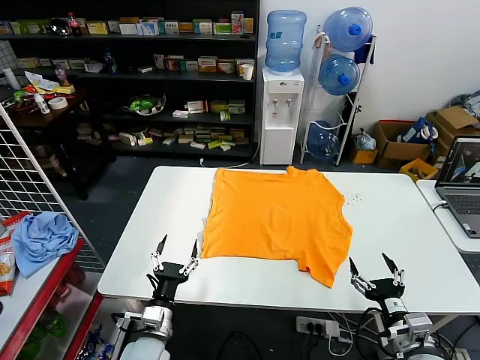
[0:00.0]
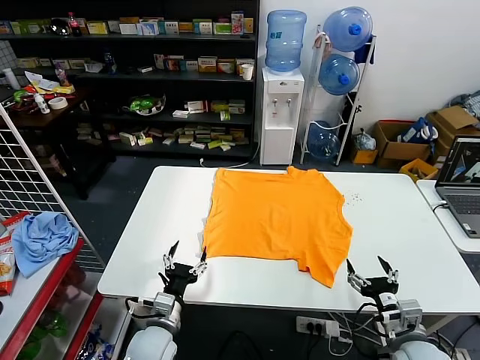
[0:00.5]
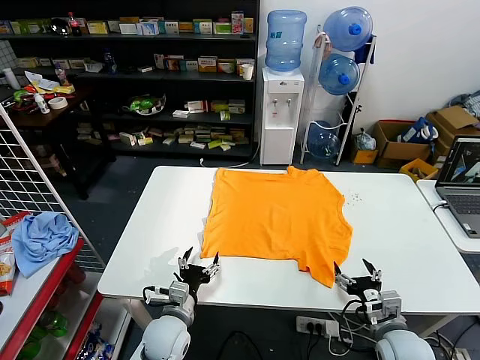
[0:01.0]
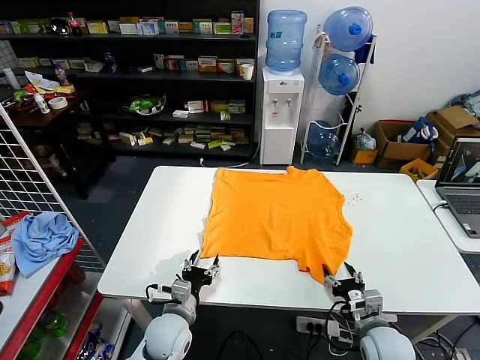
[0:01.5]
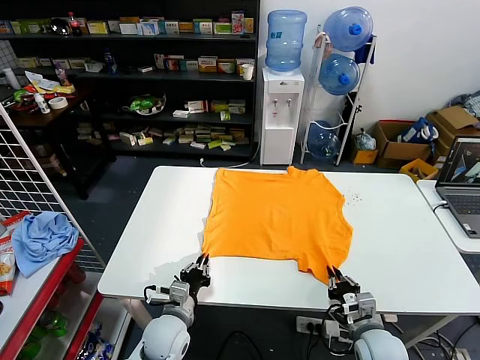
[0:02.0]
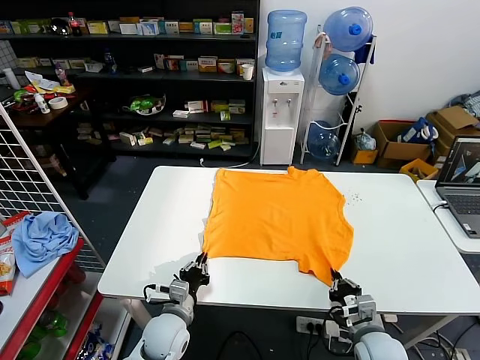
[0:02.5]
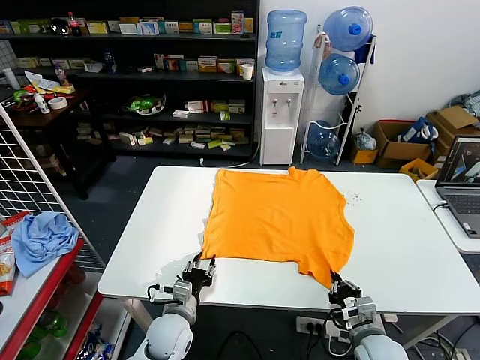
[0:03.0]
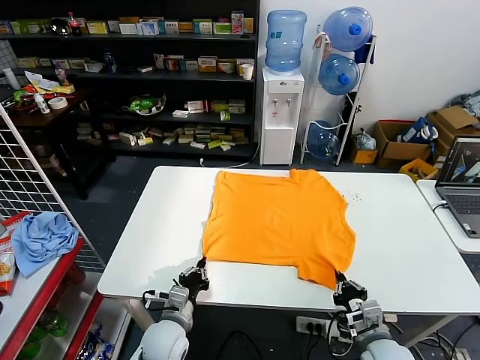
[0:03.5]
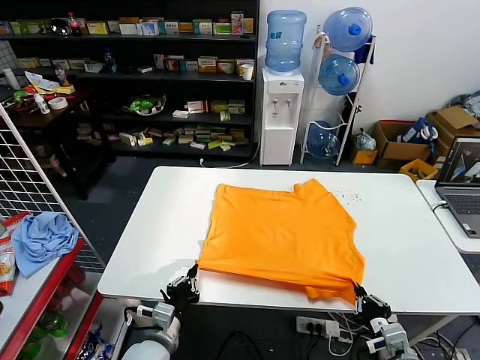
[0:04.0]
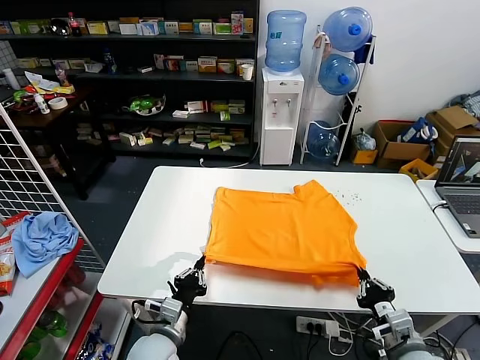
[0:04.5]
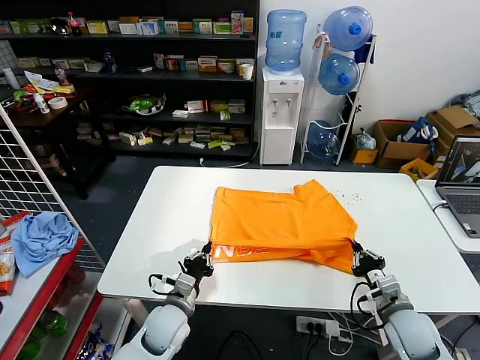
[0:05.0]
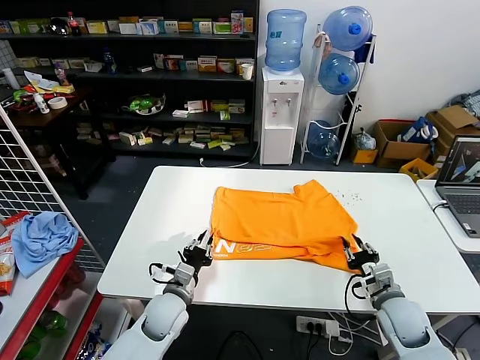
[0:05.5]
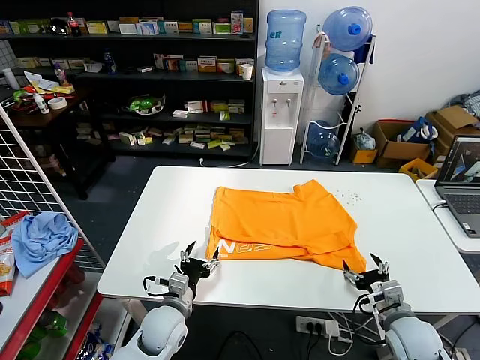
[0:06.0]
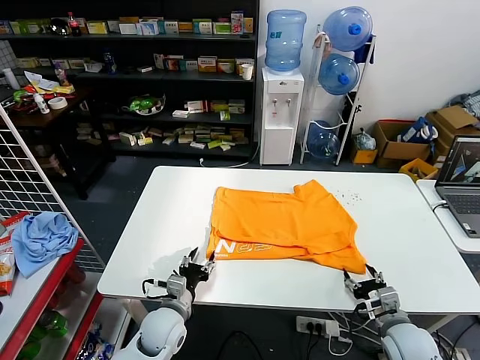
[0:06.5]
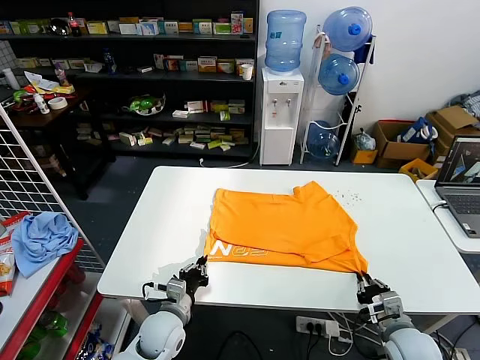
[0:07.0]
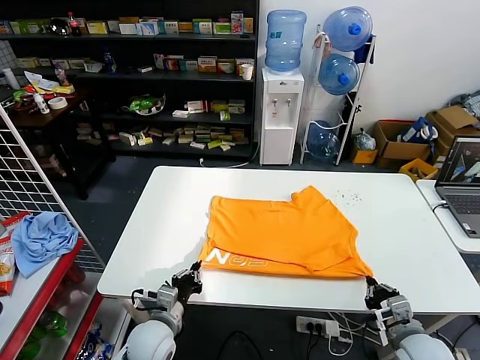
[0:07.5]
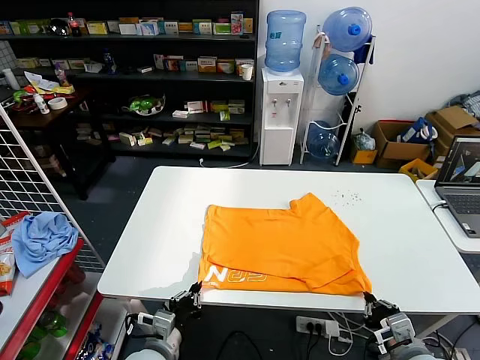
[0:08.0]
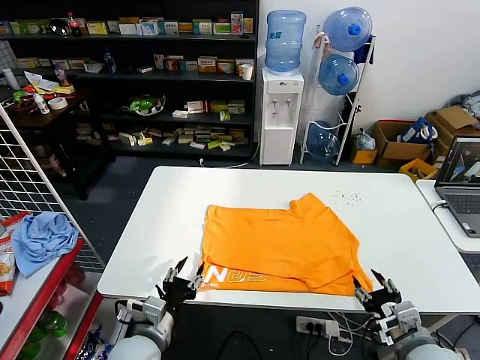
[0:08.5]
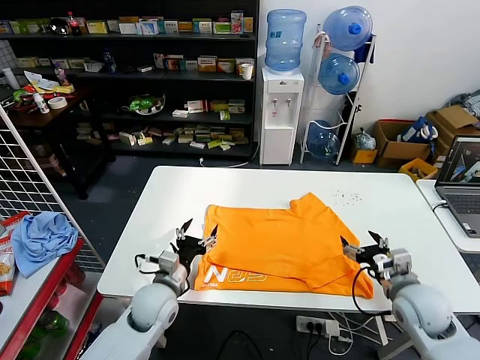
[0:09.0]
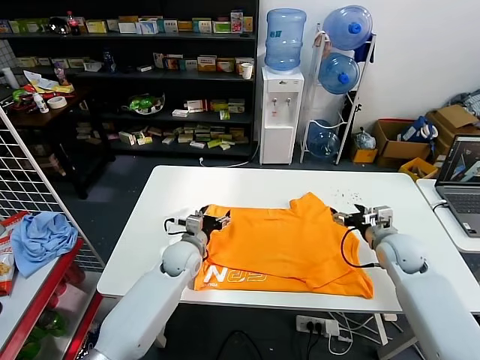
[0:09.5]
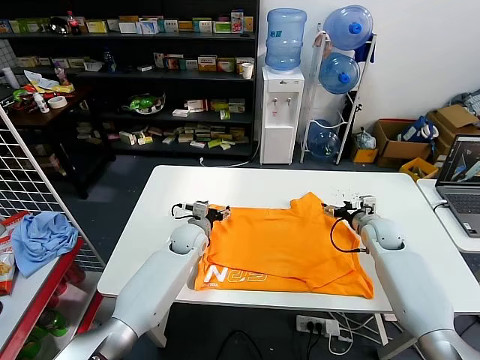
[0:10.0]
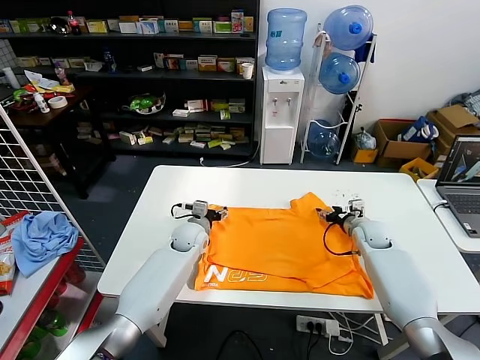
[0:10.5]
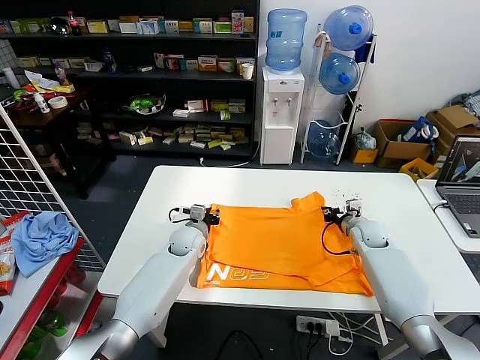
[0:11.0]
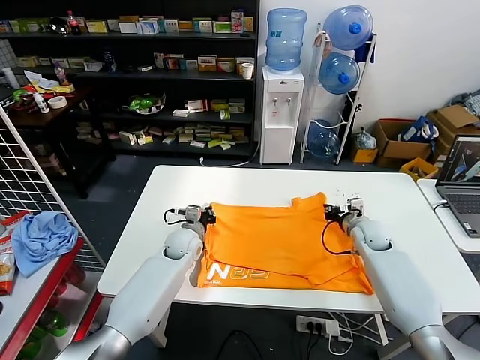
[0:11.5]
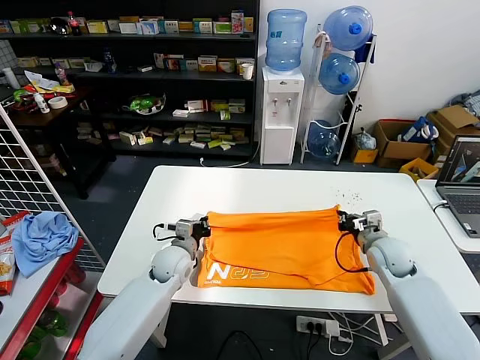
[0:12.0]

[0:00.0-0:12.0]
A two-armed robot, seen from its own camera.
Task of the whole recording: fold and organize the clothes.
Step, 0:00.0 to 0:03.5: use both grippers simultaneously to clamp the lower edge of the clothing fabric.
Step, 0:04.0 to 0:05.5: use both grippers to drag the lower edge of the fabric forward and fold it over the upper edge.
Step, 0:06.0 to 0:08.5: Drag the clothes downward with both gripper.
Step, 0:09.0 to 0:11.0: use both grippers simultaneously to clamp the upper edge of the clothing fabric.
0:02.0 to 0:04.0: The left gripper shifts some 5 cm backward, and opens, then closes again. Meanwhile the right gripper shifts about 10 cm backward and upward.
0:04.0 to 0:06.0: Both grippers move forward, about 10 cm. The right gripper opens, while the left gripper opens up.
0:06.0 to 0:08.0: Both grippers move backward, some 10 cm. The left gripper closes. The right gripper closes.
0:08.0 to 0:10.0: The grippers both shift forward by roughly 30 cm. The right gripper opens. The left gripper opens.
0:10.0 to 0:12.0: Both grippers move backward, some 5 cm. The left gripper closes its fingers; the right gripper closes its fingers.

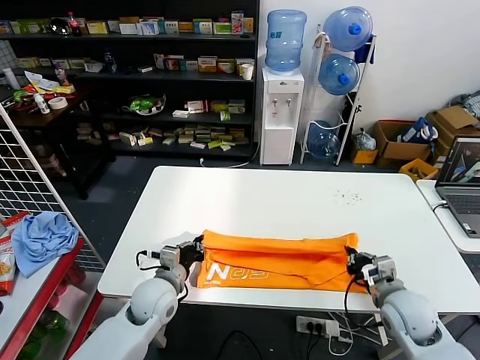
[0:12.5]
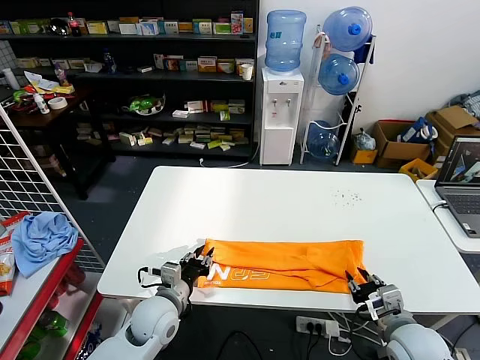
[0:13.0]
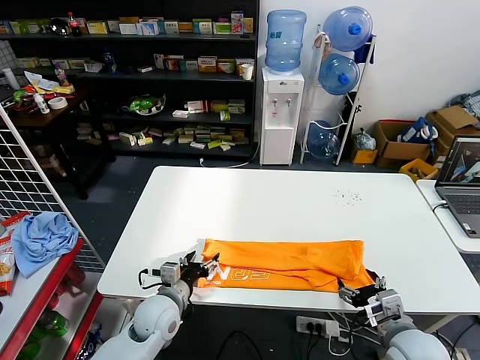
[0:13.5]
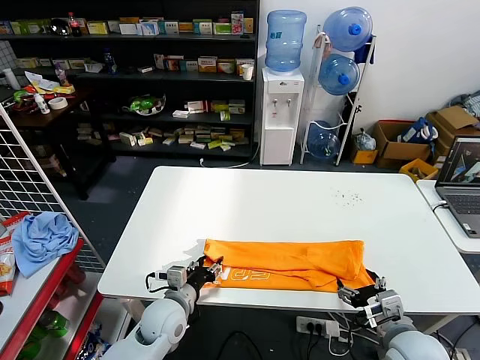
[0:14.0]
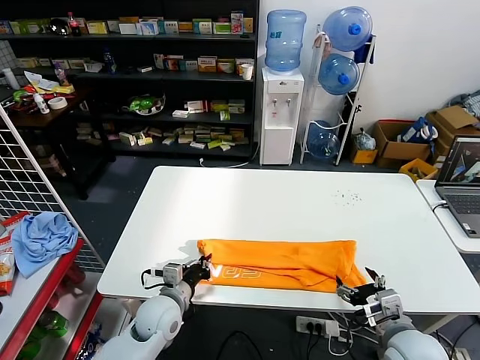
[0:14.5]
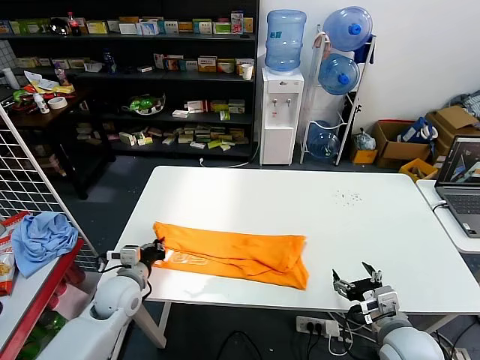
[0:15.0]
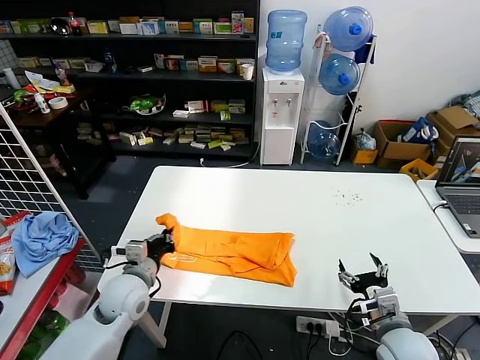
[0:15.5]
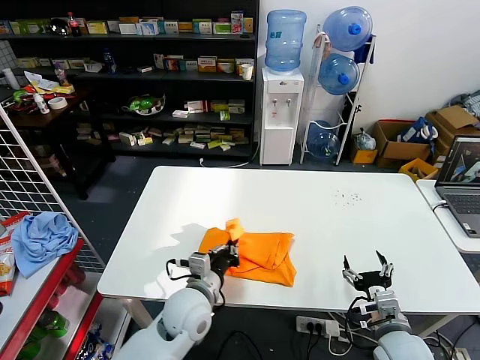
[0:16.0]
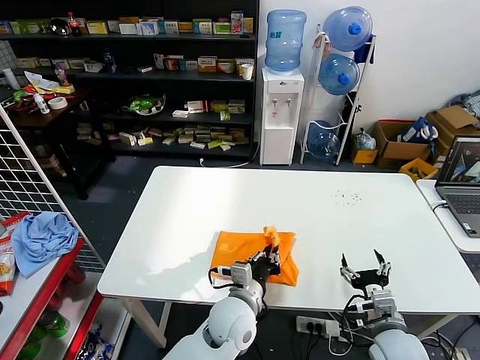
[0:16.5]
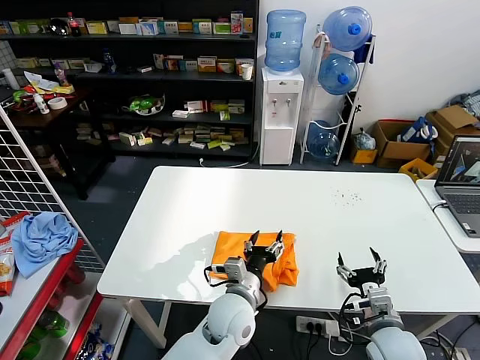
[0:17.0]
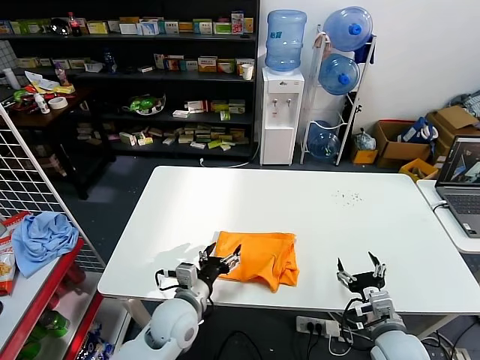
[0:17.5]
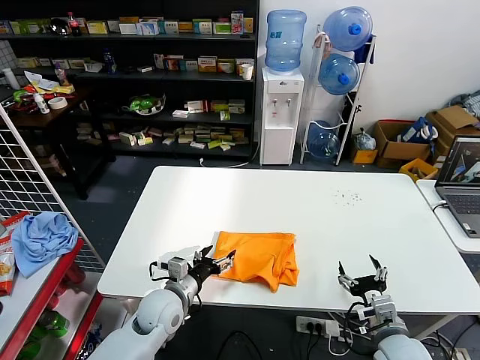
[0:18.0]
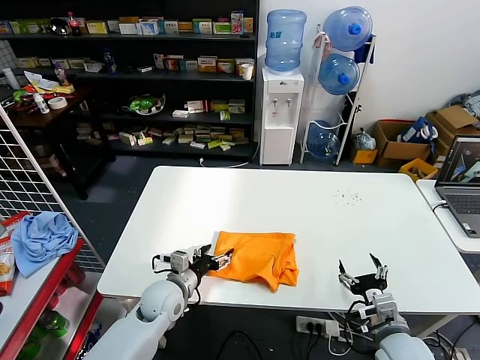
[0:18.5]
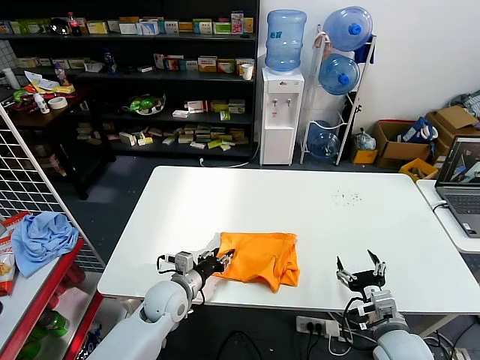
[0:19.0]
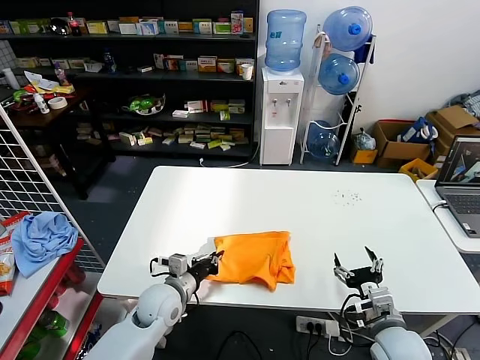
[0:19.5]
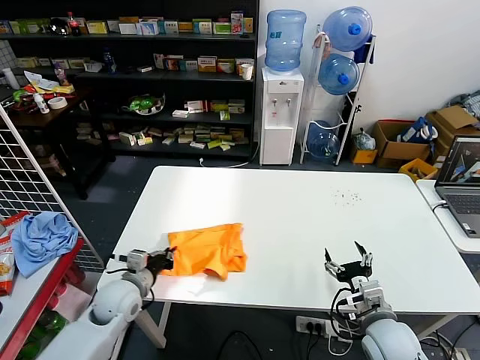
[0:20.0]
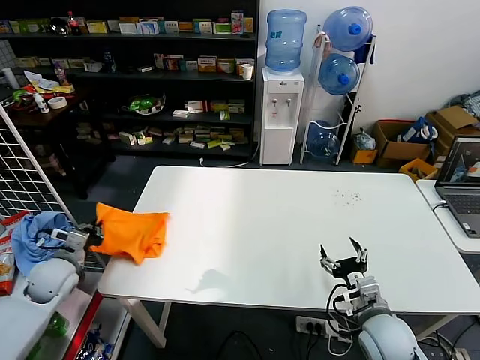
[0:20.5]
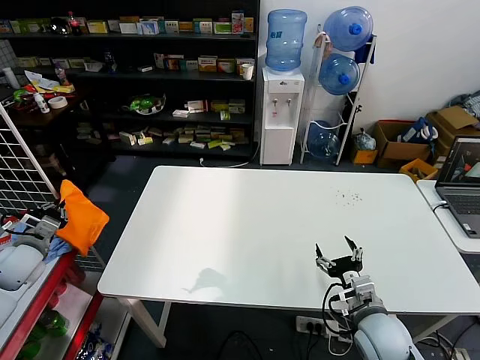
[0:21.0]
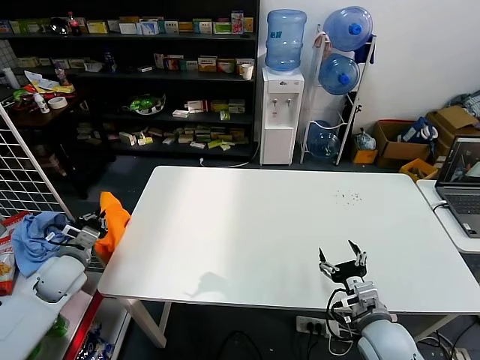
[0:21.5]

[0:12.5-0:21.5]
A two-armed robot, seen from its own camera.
Task of the whole recording: fold and organize the clothes.
Step, 0:14.0 to 0:14.5: use the left gripper to clamp the left edge of the fabric.
Step, 0:15.0 to 0:16.5: use the left gripper to drag the left edge of the fabric to the left and folds it over the right edge.
0:12.5 to 0:14.5: The right gripper heads backward, covering roughly 5 cm, and opens its fingers. Meanwhile the left gripper opens and closes again.
0:14.5 to 0:17.0: The left gripper moves to the right, approximately 15 cm, and opens.
0:17.0 to 0:19.5: The left gripper is displaced to the left by some 15 cm, and closes its fingers.
0:19.5 to 0:21.5: The left gripper moves to the left, some 25 cm.

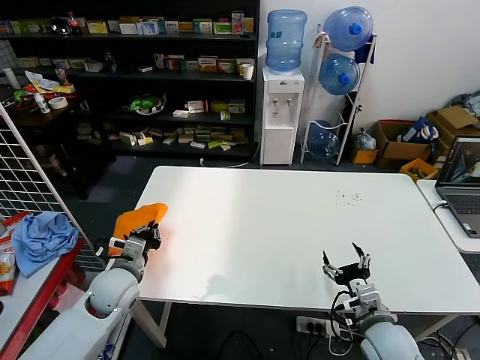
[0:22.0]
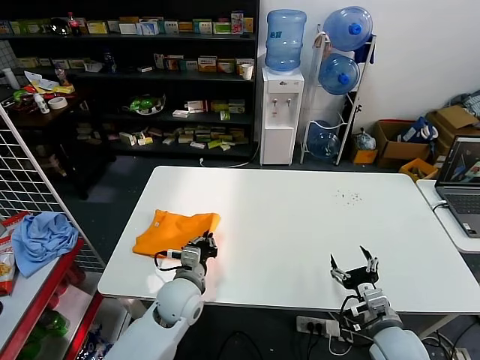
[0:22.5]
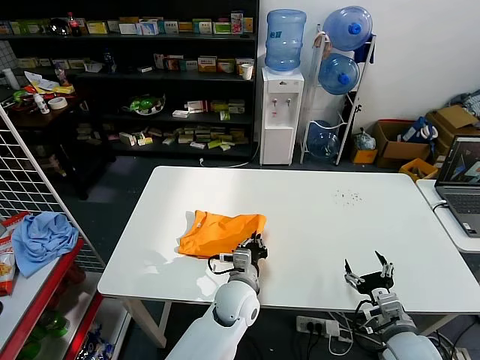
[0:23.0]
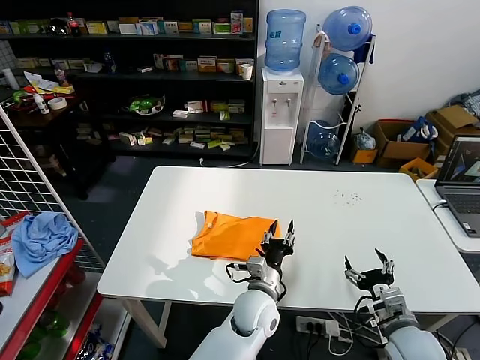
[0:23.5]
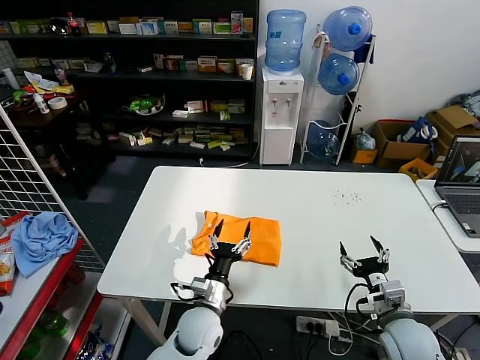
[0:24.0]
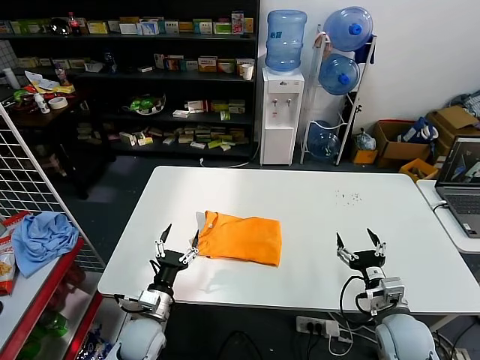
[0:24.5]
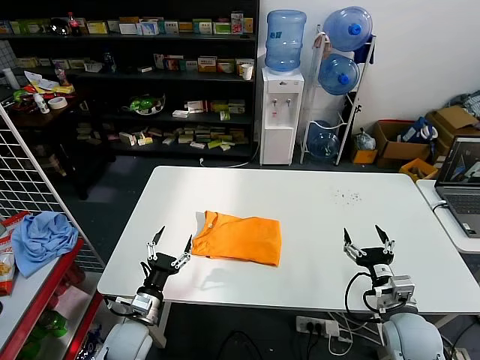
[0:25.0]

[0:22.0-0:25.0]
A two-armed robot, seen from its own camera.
Task of the whole recording: fold and organize the clothes.
0:22.0 to 0:23.5: The left gripper is displaced to the right by about 35 cm, and opens up, while the right gripper moves some 5 cm.
0:23.5 to 0:25.0: The left gripper heads to the left, covering roughly 30 cm, and opens.

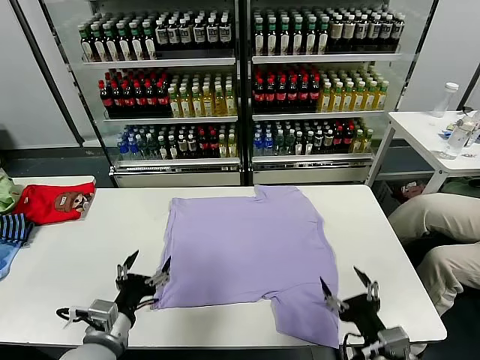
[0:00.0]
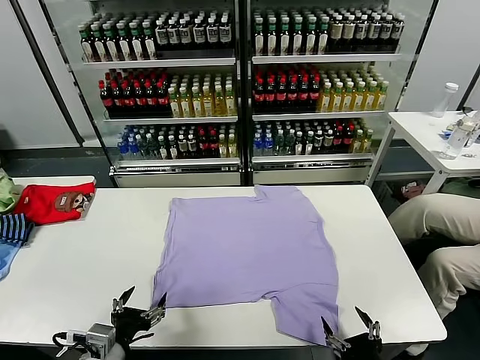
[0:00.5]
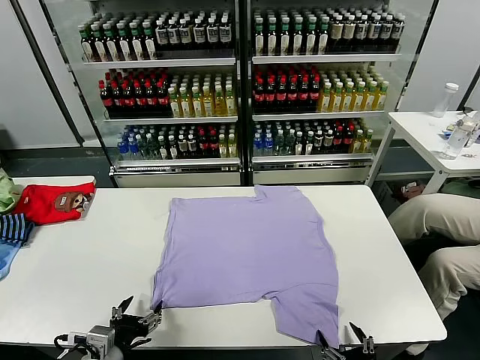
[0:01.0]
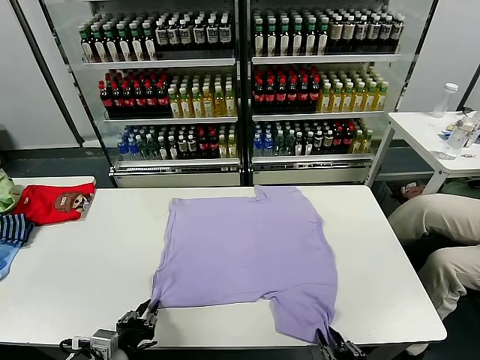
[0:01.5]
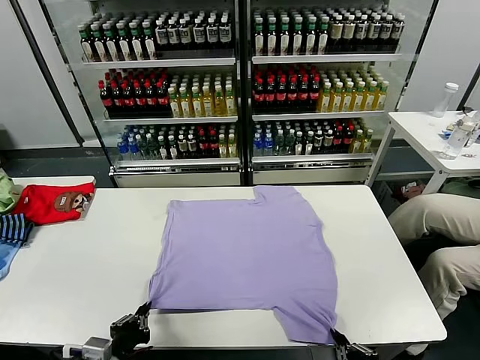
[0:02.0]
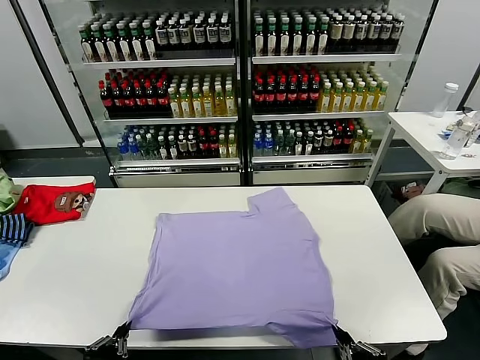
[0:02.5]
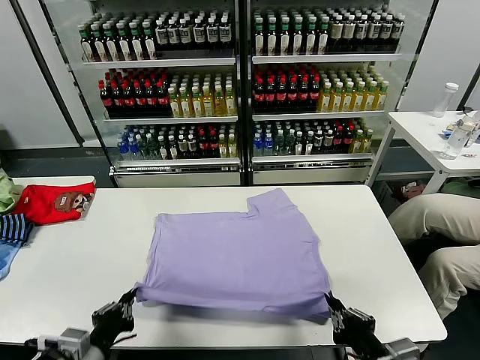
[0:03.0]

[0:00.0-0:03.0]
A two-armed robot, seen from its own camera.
Task of the whole recording: fold and organize the clothes.
Step, 0:00.0 to 0:02.0: use both grippers simultaneously to clamp the lower edge of the clothing fabric.
0:01.5 to 0:03.0: The right gripper travels upward and forward by roughly 10 cm.
